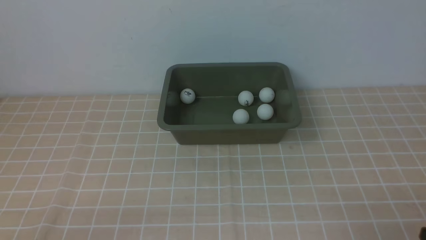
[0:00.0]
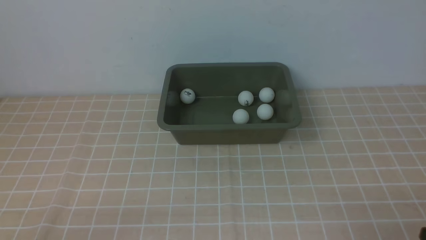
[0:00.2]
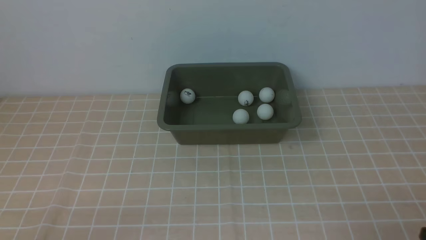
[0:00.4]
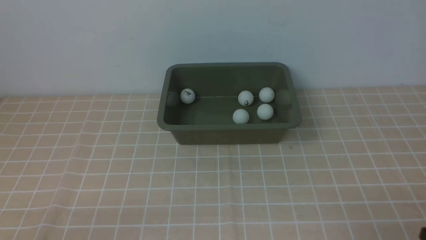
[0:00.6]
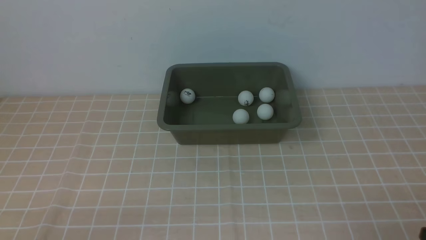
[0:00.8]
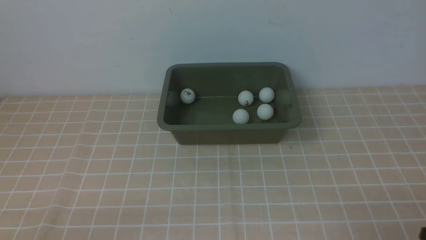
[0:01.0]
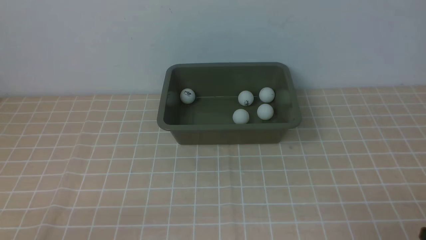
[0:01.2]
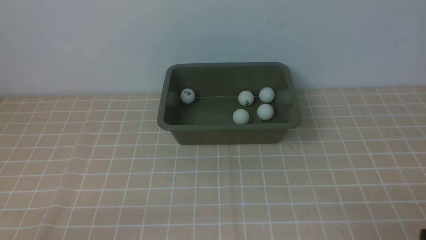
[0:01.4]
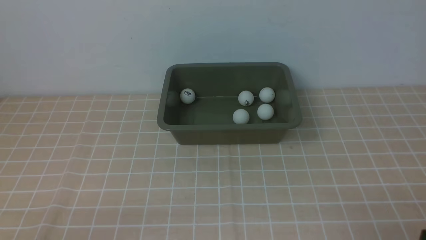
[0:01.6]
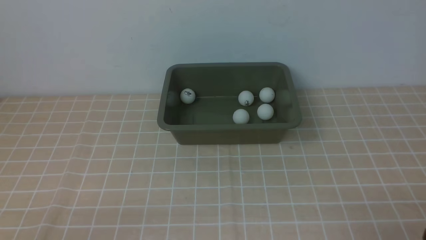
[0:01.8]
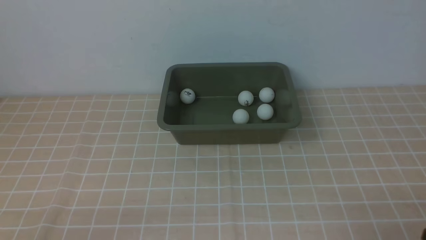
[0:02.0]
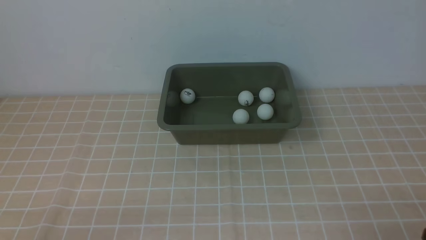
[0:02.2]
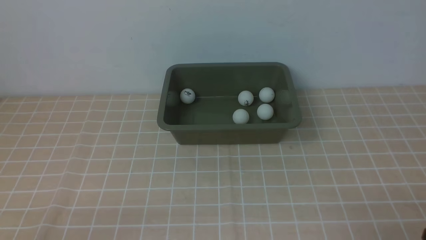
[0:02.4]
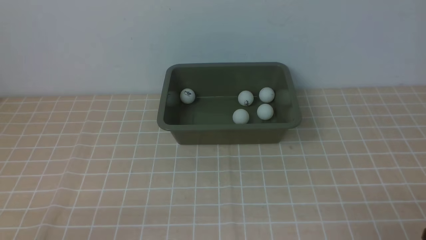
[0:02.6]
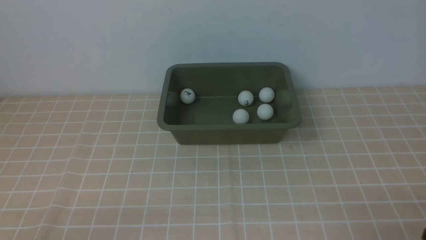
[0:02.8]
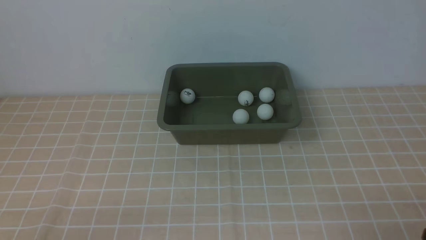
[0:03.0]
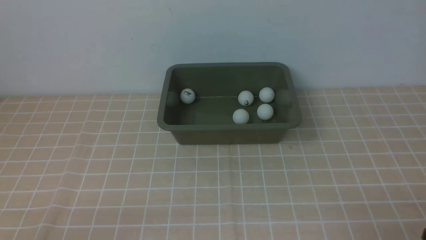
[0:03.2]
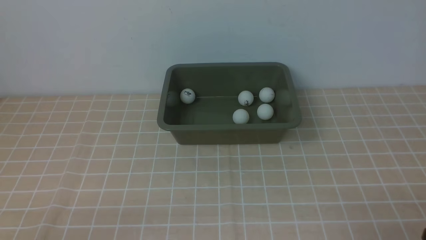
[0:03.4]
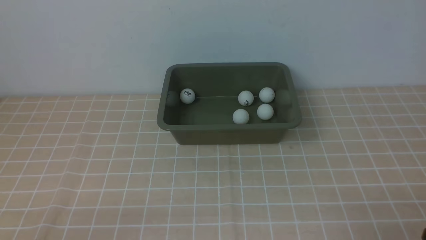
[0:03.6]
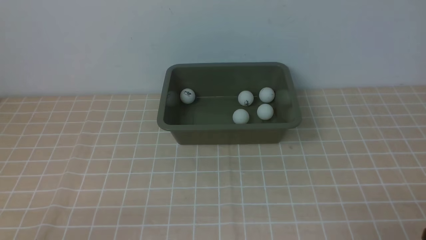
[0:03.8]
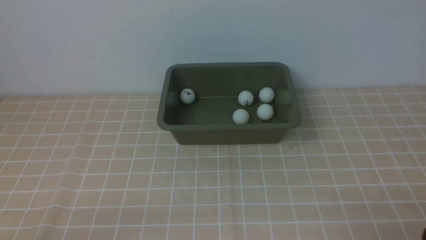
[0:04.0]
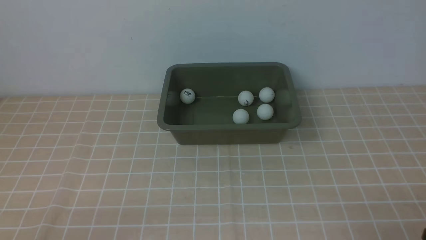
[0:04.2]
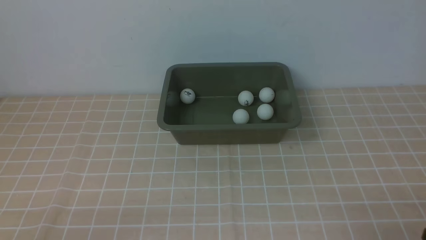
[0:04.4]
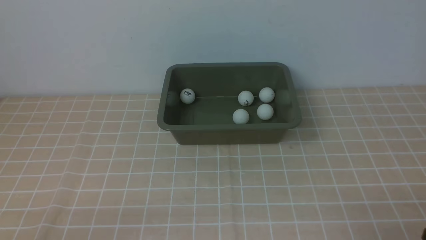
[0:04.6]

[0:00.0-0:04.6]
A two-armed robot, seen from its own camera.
0:00.0 to 0:04.6: Both grippers stay put.
